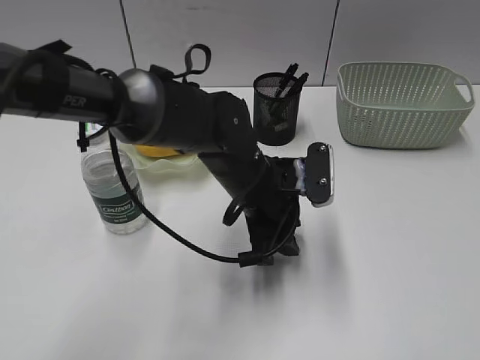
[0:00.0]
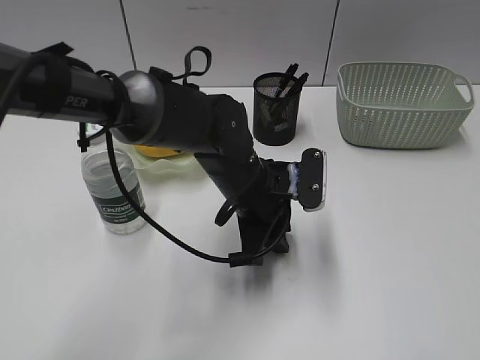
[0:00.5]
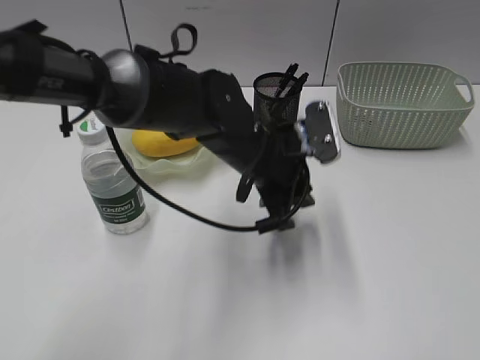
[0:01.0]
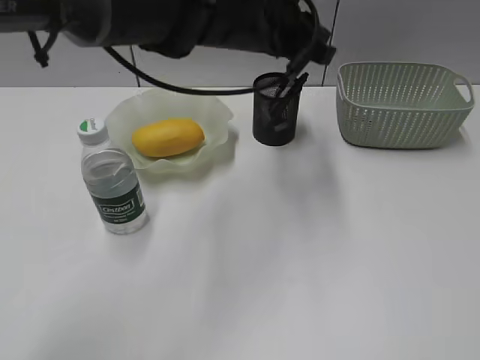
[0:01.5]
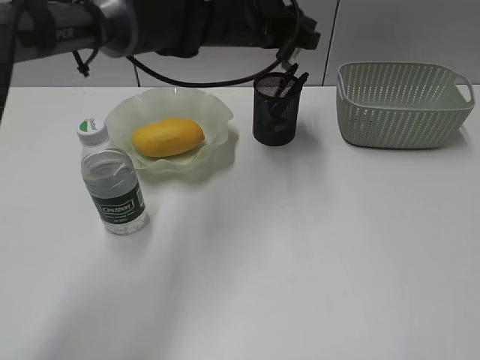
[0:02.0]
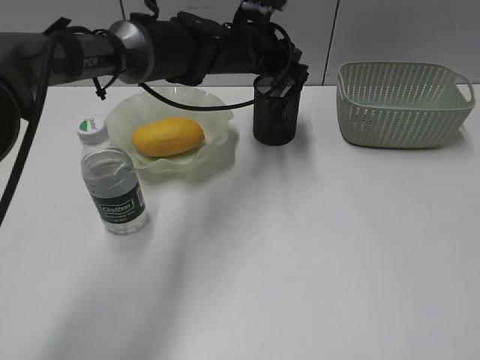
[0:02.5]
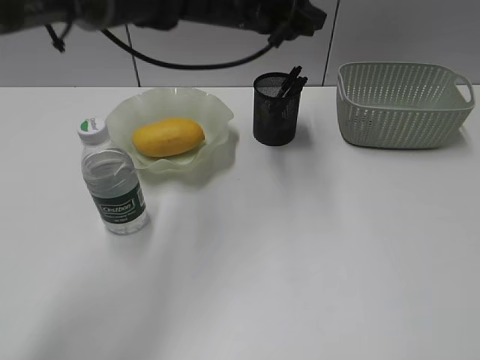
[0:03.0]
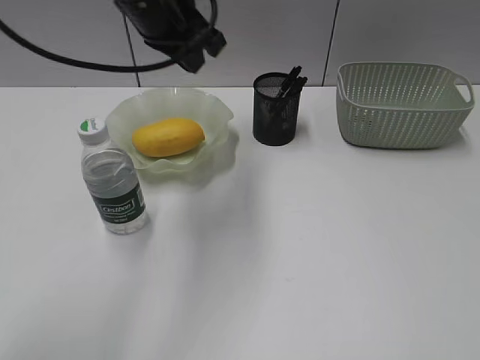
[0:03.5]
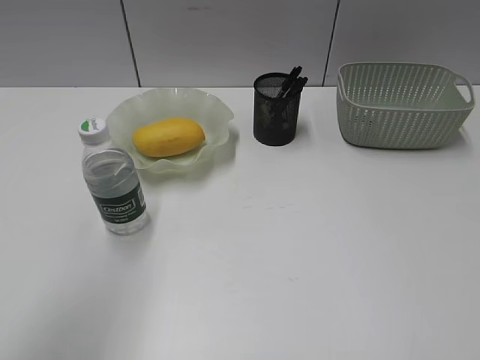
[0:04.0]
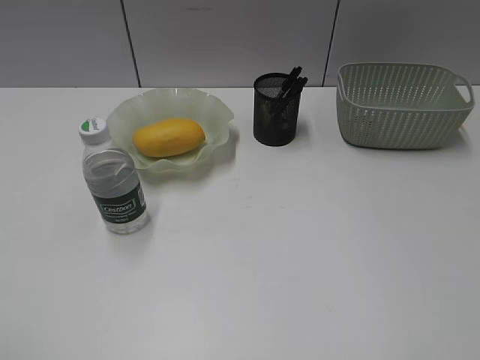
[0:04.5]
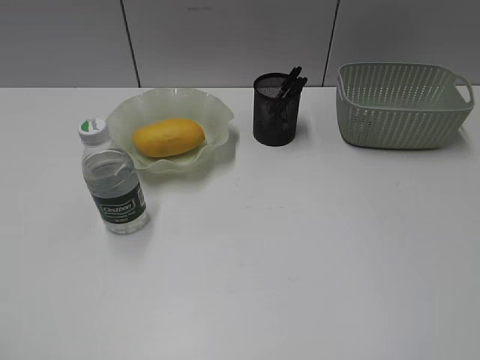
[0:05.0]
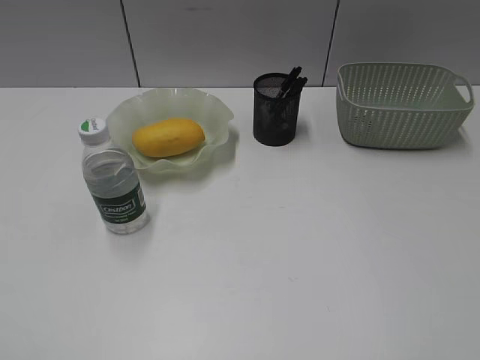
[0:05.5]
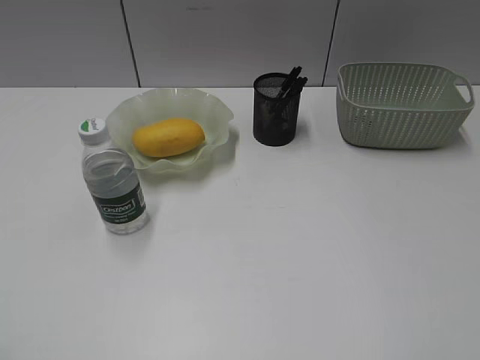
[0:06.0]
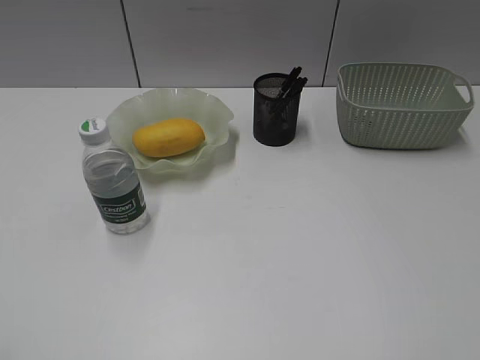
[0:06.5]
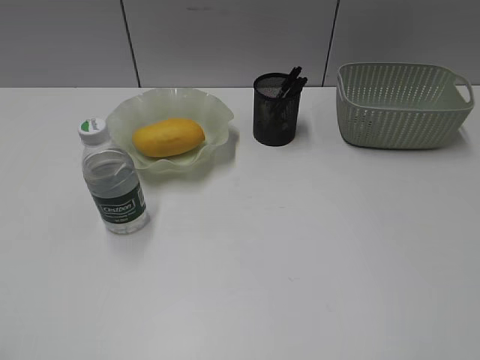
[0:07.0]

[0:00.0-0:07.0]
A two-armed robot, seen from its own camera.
Step, 0:01.0 to 0:02.5: Place the eraser in pen holder with left gripper.
0:00.0 to 0:02.0: The left gripper heads forward and upward, covering some 20 cm, and closes its fingers.
0:02.0 to 0:03.5: The left gripper moves to the left, backward and upward, about 15 cm.
0:03.5 to 0:05.0: The left gripper moves backward and to the left, some 40 cm, and opens up.
